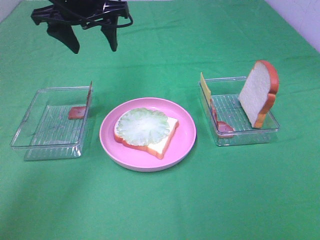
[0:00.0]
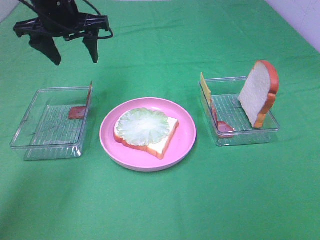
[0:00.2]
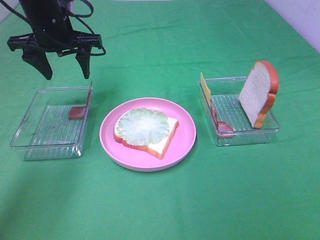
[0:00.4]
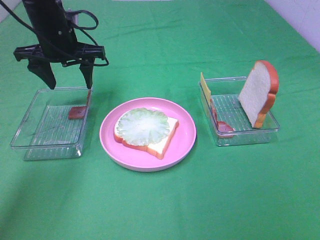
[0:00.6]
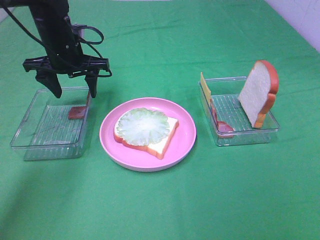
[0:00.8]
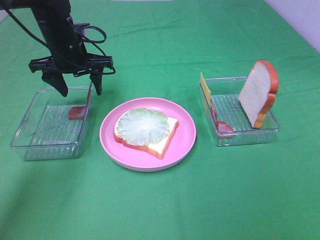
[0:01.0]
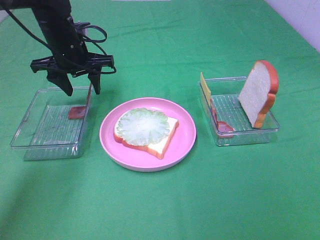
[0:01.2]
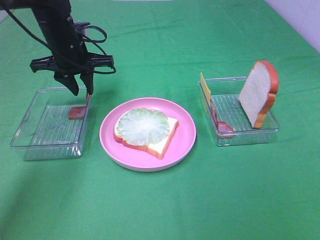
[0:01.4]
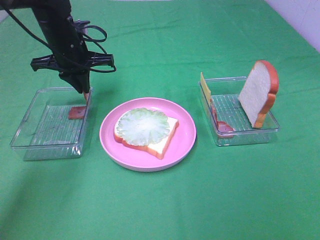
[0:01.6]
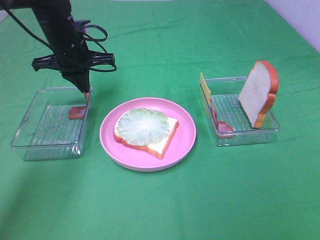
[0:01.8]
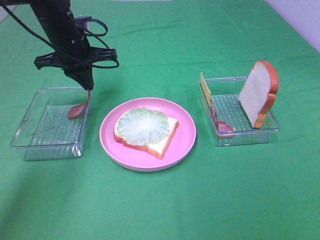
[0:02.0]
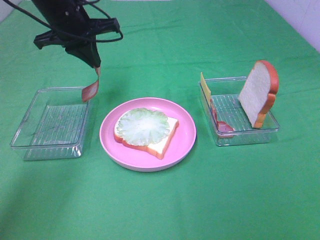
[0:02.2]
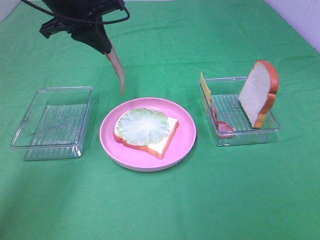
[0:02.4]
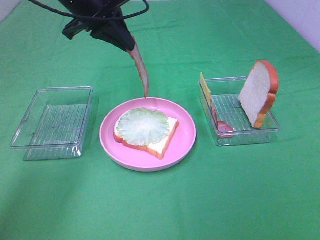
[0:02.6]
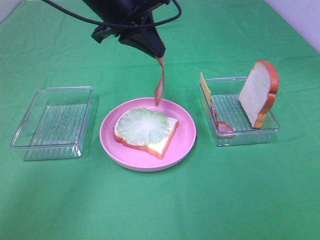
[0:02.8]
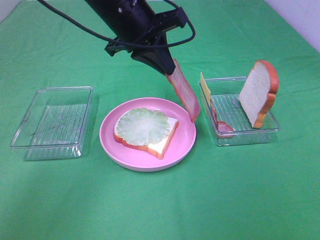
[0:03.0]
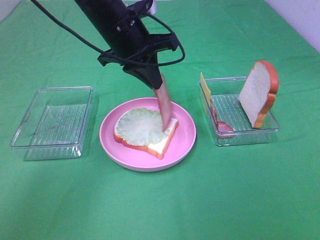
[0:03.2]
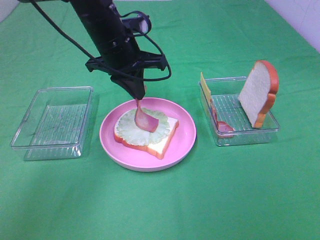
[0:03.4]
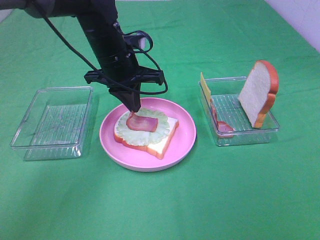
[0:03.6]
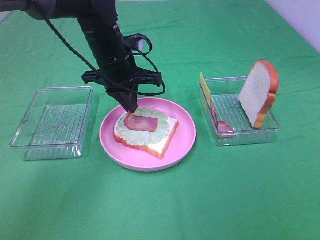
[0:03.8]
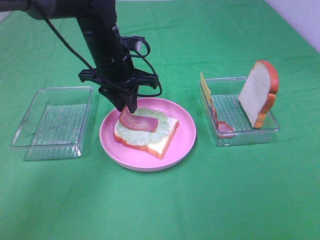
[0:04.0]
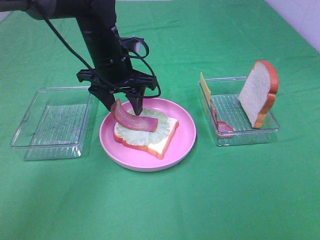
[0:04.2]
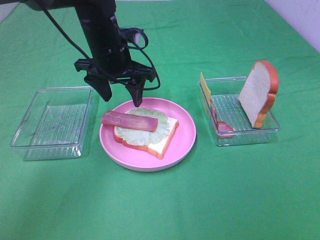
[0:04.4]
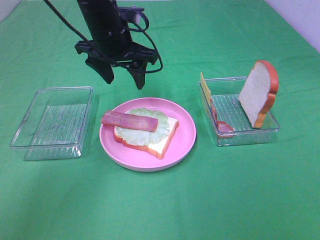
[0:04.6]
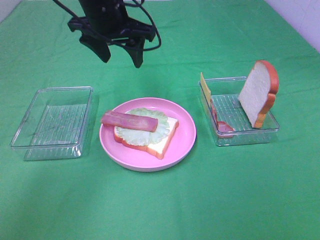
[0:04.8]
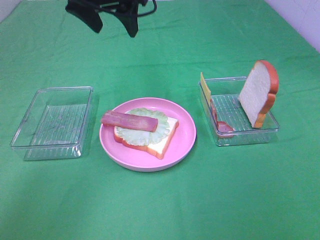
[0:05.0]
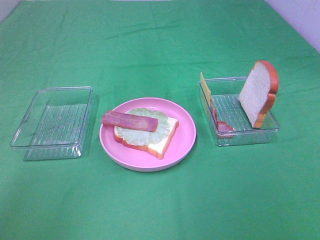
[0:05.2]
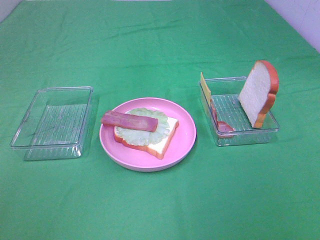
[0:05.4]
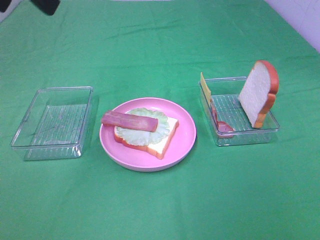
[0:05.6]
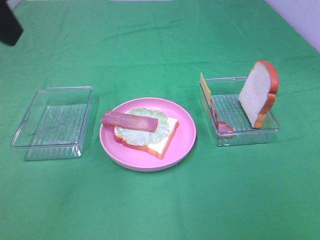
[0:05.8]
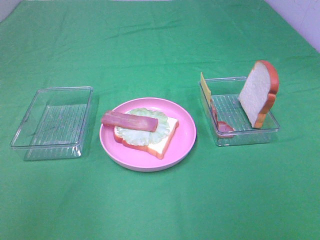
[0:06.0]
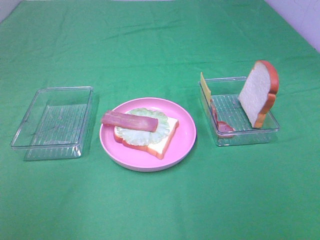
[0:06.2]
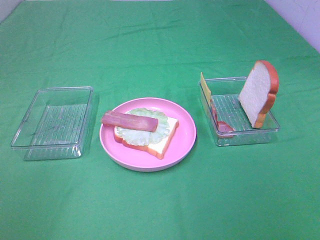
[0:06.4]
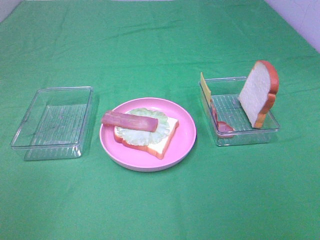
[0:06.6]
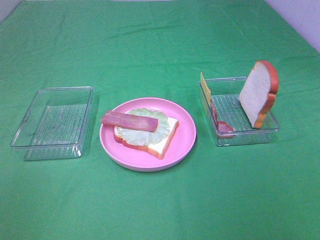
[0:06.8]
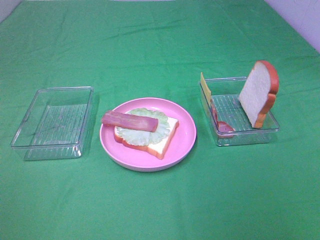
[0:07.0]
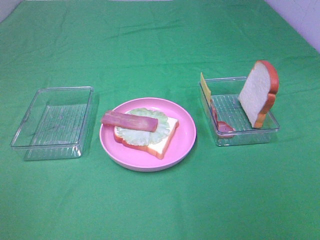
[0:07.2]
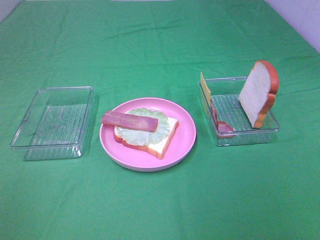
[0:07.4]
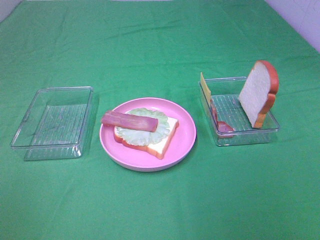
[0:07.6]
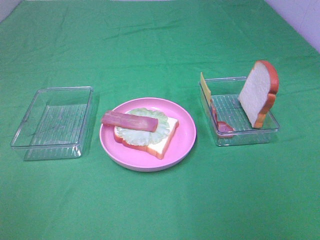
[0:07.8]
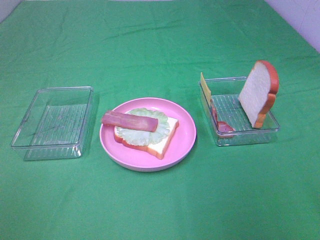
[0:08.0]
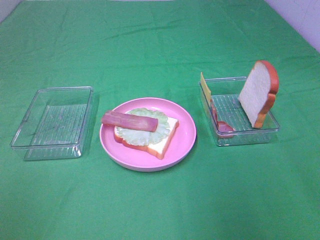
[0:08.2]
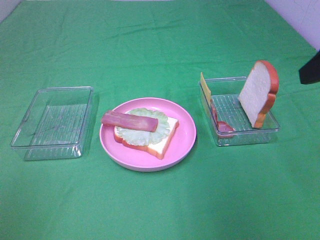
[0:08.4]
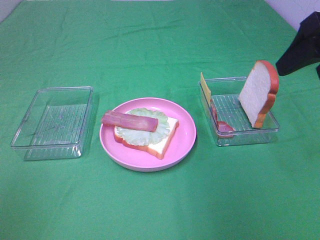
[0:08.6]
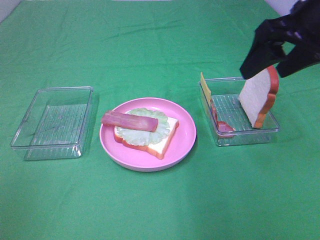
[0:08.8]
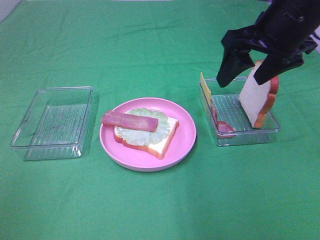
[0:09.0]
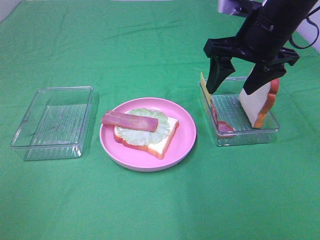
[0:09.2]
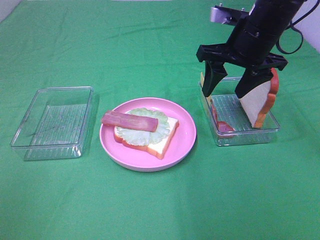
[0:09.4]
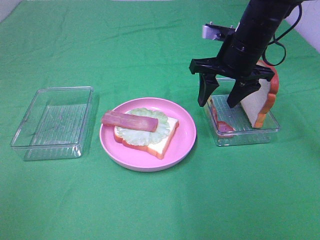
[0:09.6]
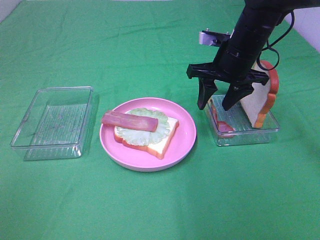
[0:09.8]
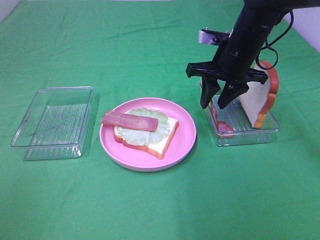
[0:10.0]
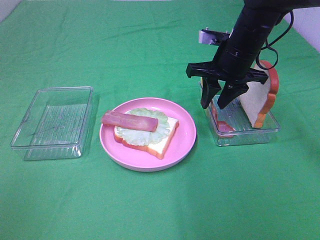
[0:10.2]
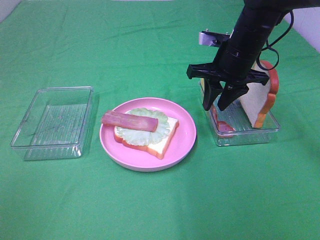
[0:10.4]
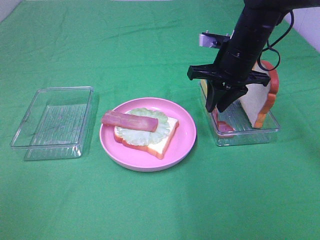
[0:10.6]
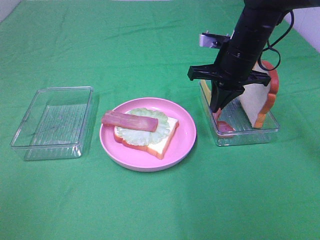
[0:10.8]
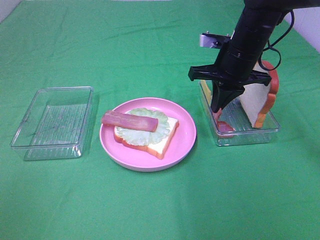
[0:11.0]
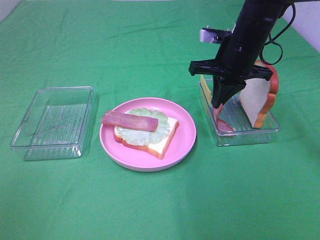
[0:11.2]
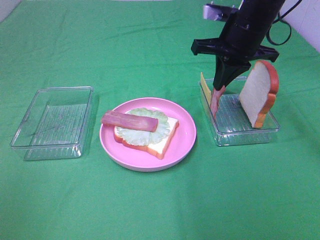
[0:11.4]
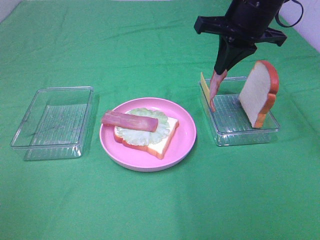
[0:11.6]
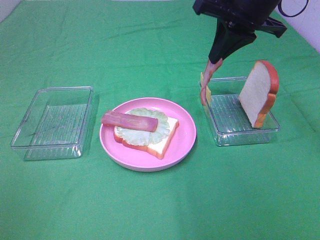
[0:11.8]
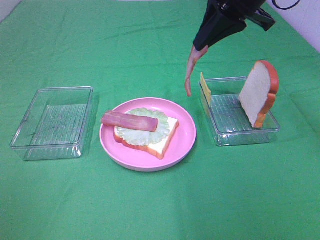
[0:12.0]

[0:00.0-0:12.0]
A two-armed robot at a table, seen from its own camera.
Task of the whole recording: Make sandwiches.
Step, 0:00.0 to 0:01.8: Left hand:grab the bacon.
Step, 0:02.0 to 0:04.6: Left hand:place bacon on lettuce slice.
Step, 0:04.8 to 0:11.0: Right hand:grab the bacon.
0:00.0 to 0:01.6: The left gripper goes about 10 cm downward, and closes.
0:01.6 to 0:03.0: The left gripper travels to the right, upward and backward by about 15 cm.
0:03.0 to 0:04.4: The left gripper heads downward, covering roughly 5 cm, and opens its fingers.
0:04.4 to 0:06.0: The left gripper heads backward, upward and to the left, covering some 35 cm.
0:07.6 to 0:09.0: The right gripper travels forward by some 30 cm.
0:09.0 to 0:10.4: The right gripper heads downward and forward, covering some 10 cm, and closes.
0:10.4 to 0:12.0: The right gripper travels upward by about 15 cm, and closes.

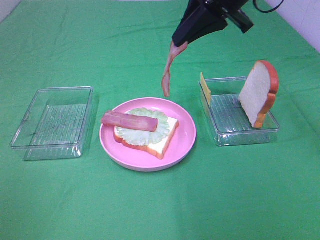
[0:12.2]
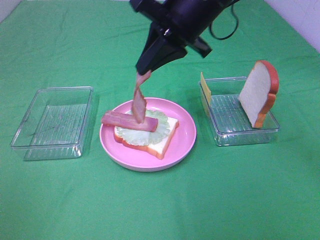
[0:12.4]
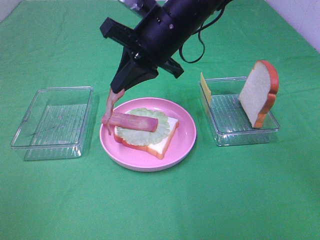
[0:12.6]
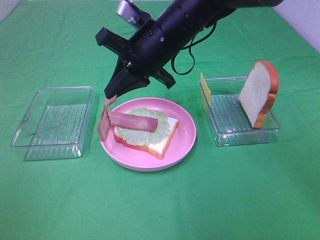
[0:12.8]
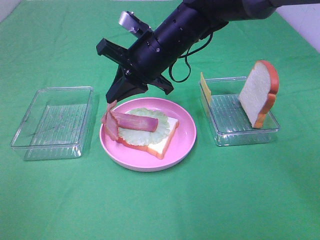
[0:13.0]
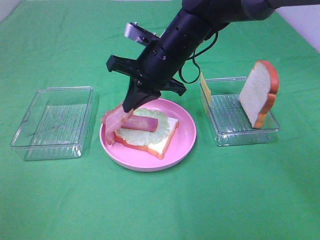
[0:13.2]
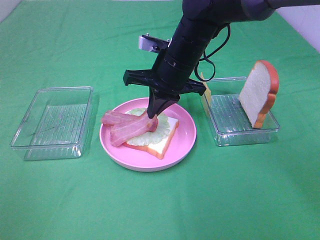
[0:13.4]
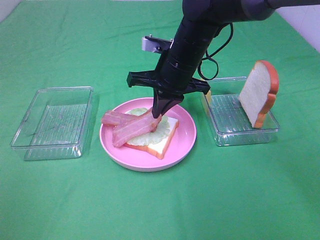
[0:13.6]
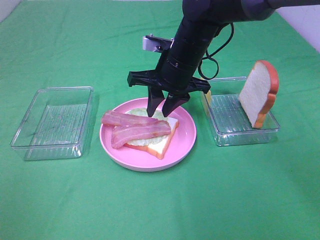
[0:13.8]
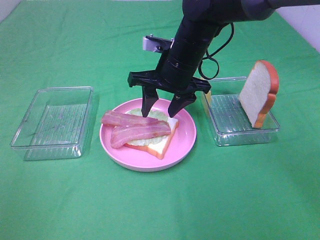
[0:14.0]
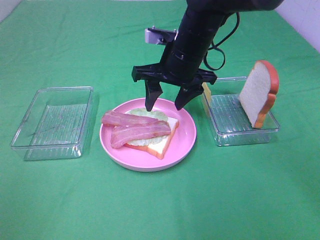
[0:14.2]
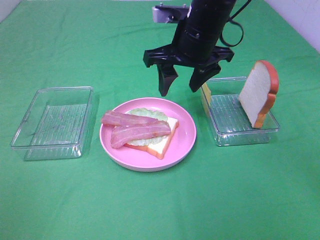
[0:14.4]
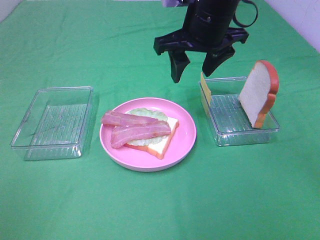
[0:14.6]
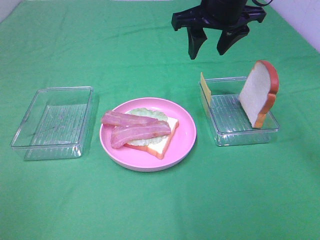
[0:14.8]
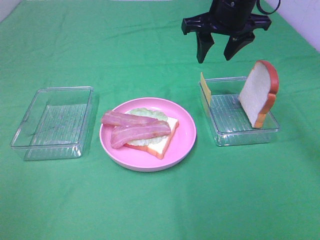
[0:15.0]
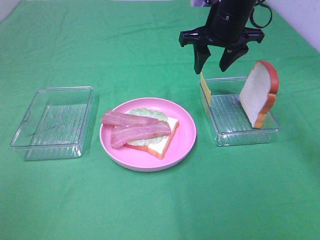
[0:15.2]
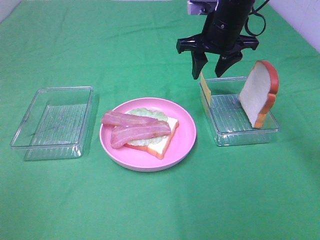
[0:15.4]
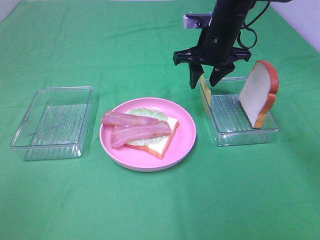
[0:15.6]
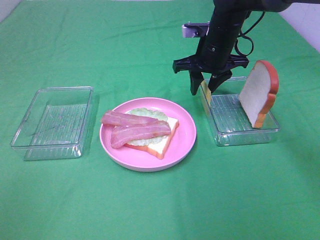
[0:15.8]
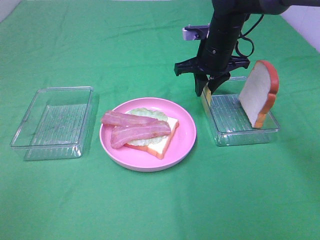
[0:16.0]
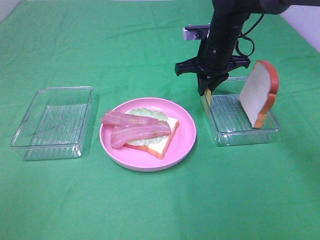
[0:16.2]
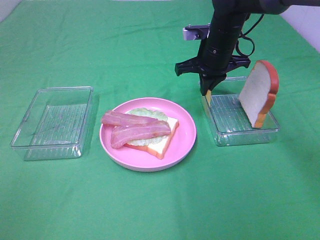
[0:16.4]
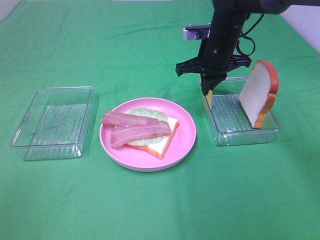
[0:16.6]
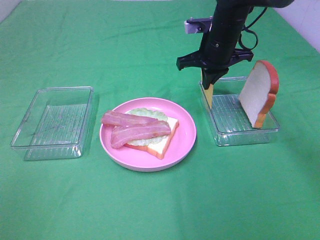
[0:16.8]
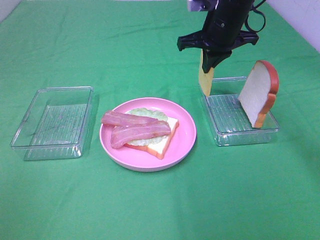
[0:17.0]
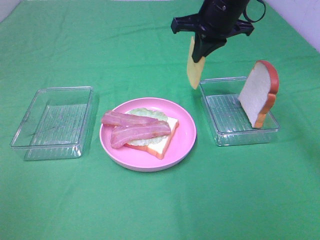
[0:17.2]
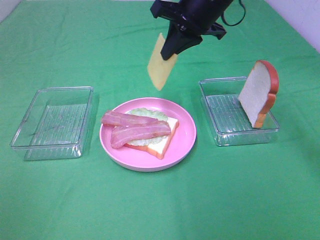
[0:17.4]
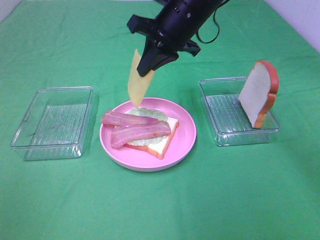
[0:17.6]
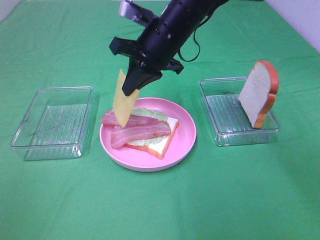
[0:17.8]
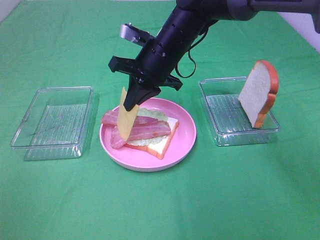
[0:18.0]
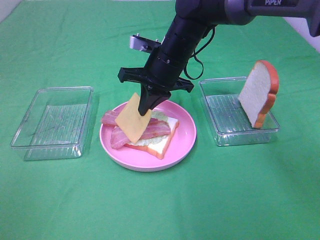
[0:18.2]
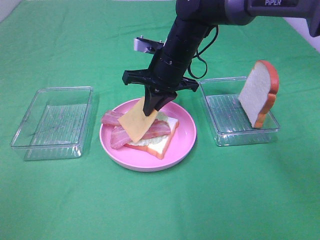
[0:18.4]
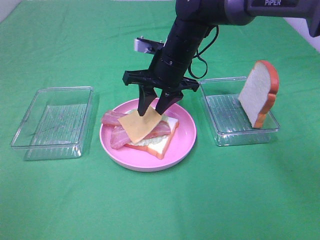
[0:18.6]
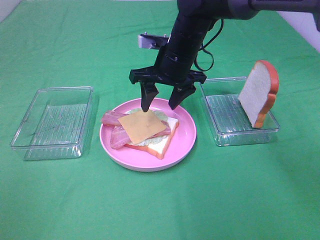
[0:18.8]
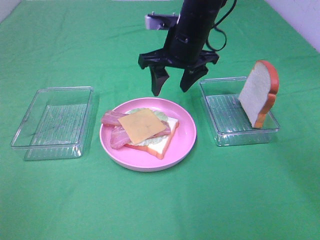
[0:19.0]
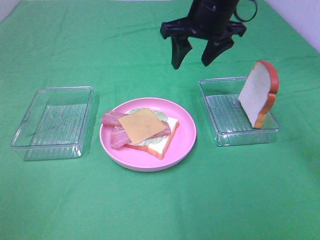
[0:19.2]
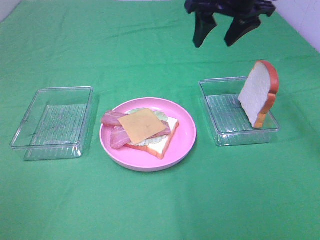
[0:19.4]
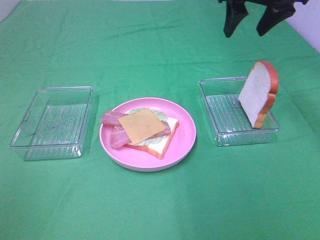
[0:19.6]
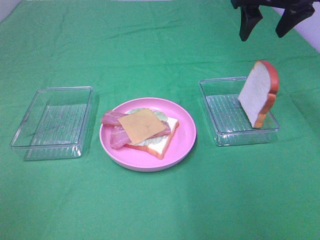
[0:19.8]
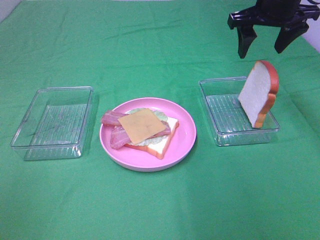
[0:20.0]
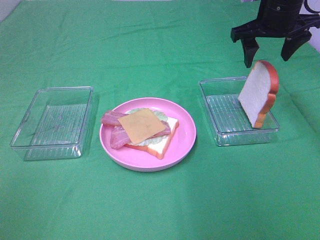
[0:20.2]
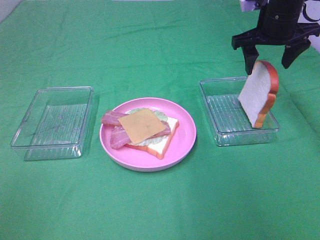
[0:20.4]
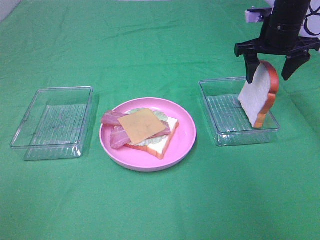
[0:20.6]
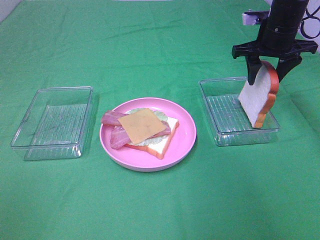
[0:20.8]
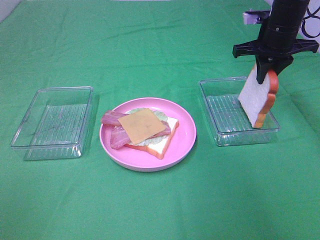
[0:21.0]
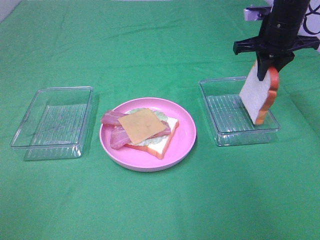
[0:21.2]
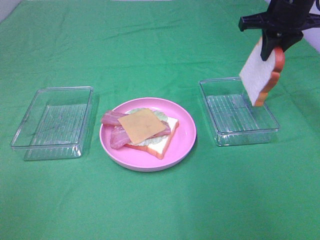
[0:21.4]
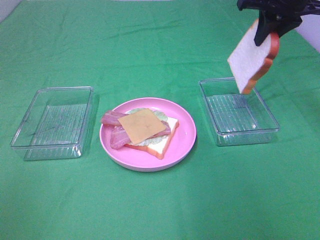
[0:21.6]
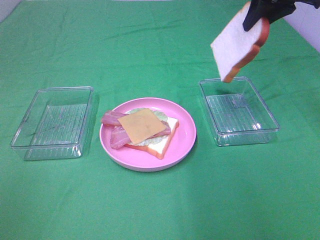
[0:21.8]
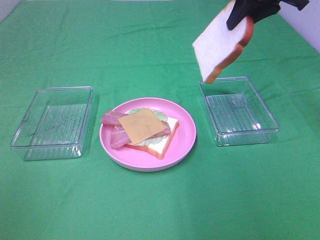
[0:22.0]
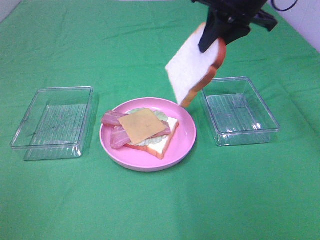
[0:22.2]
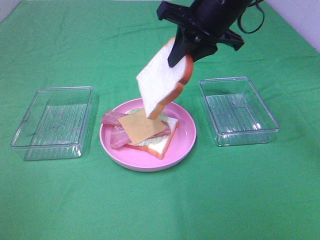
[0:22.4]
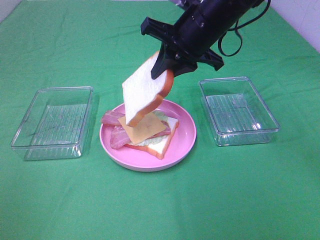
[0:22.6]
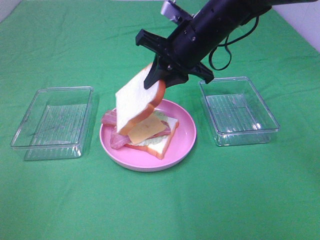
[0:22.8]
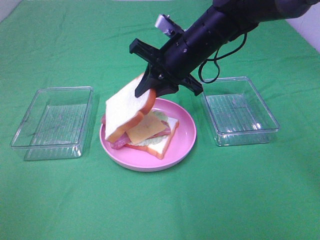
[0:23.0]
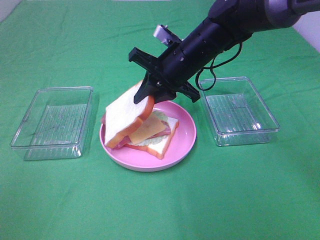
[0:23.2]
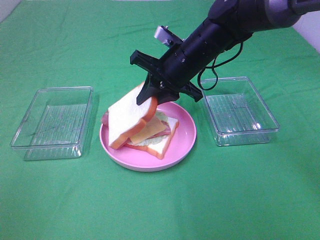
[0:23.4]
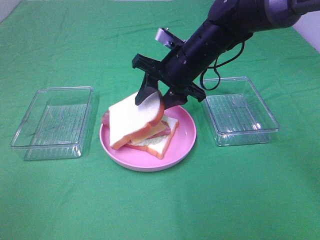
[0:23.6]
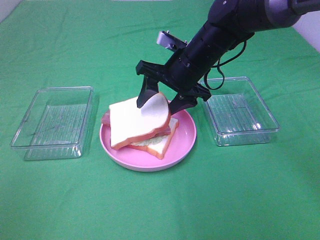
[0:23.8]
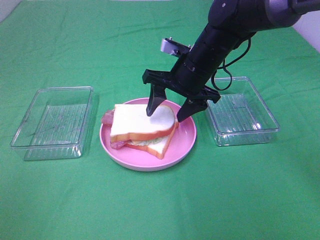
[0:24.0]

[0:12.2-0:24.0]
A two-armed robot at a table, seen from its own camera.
Task of the whole recording: Make sandwiches.
Step, 0:12.2 to 0:13.8: Right hand:place bacon on bacon.
Step, 0:14.0 to 0:16.4: Right hand:grab the cheese slice.
Step, 0:16.6 to 0:19.0: Right hand:place the cheese slice on top of the bacon.
Step, 0:19.2 to 0:21.2: Right hand:grab the bread slice.
0:12.2 to 0:13.6: The right gripper is displaced downward and to the left by some 15 cm.
0:13.6 to 0:15.2: The right gripper heads to the right, upward and forward, covering roughly 10 cm, and opens up.
0:15.2 to 0:16.6: The right gripper shifts about 5 cm downward, and closes up.
0:16.6 to 0:18.2: The right gripper heads to the left, covering about 10 cm.
0:18.2 to 0:19.6: The right gripper is displaced to the right and upward by about 20 cm, and opens.
0:19.6 to 0:21.0: The right gripper travels downward by some 10 cm, and closes its fingers.
0:21.0 to 0:22.6: The right gripper shifts approximately 15 cm to the left and backward.
0:22.6 to 0:24.0: The right gripper heads downward, covering about 10 cm, and opens up.
